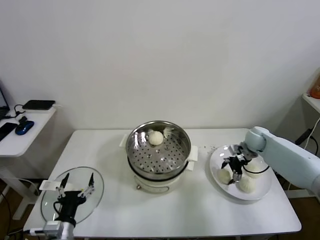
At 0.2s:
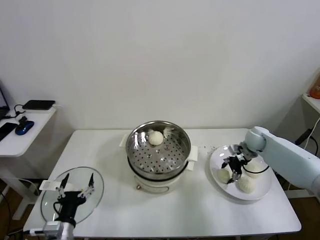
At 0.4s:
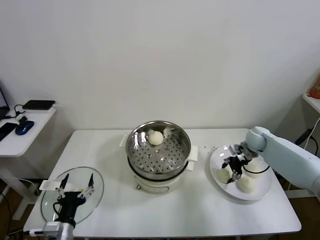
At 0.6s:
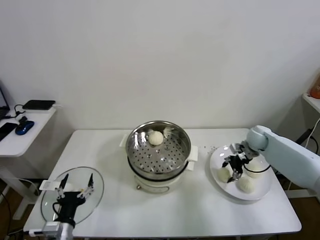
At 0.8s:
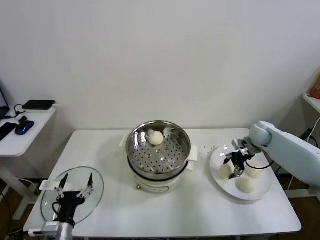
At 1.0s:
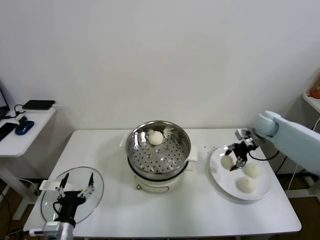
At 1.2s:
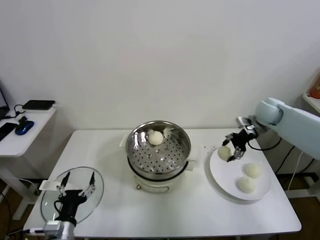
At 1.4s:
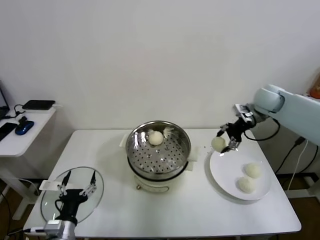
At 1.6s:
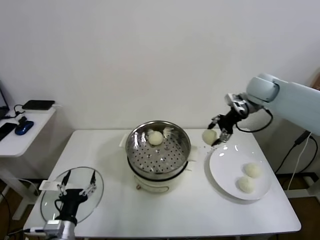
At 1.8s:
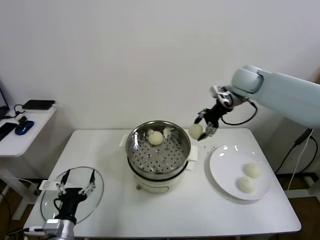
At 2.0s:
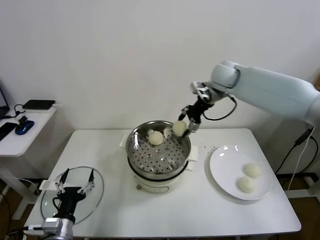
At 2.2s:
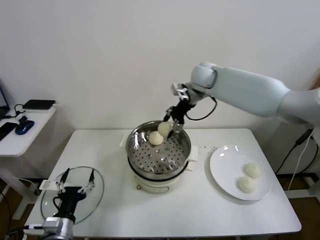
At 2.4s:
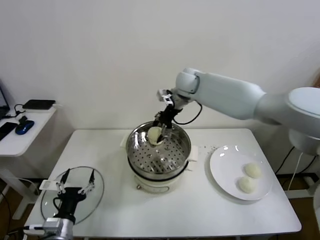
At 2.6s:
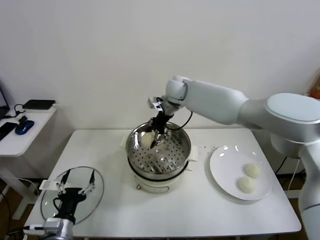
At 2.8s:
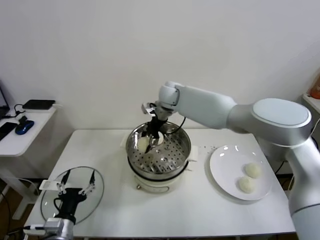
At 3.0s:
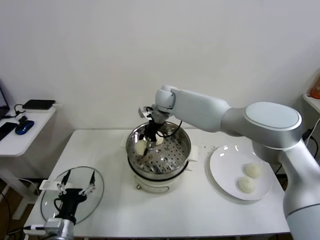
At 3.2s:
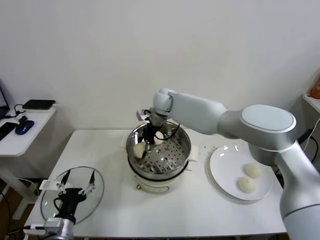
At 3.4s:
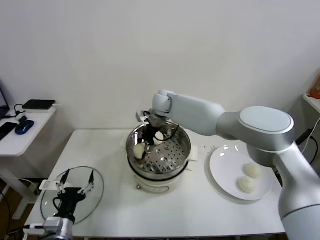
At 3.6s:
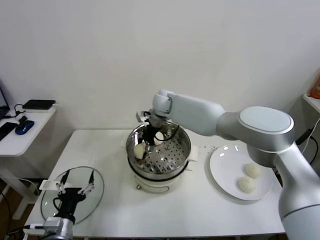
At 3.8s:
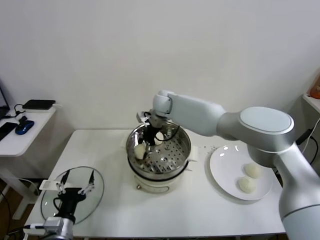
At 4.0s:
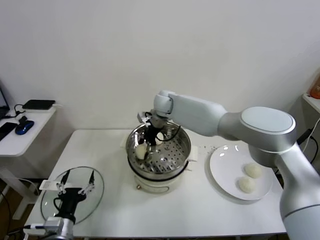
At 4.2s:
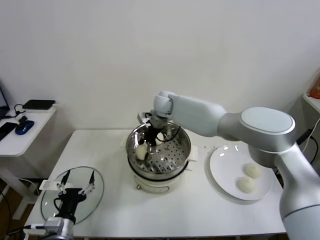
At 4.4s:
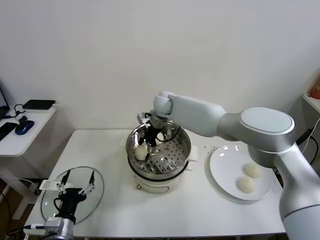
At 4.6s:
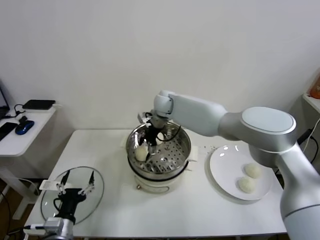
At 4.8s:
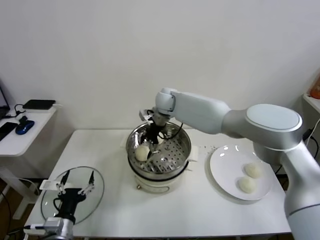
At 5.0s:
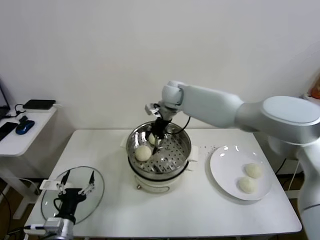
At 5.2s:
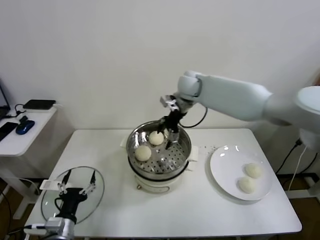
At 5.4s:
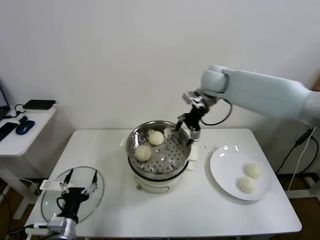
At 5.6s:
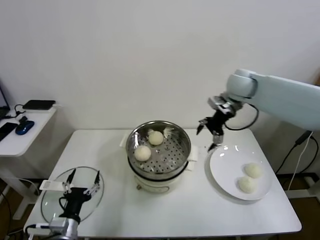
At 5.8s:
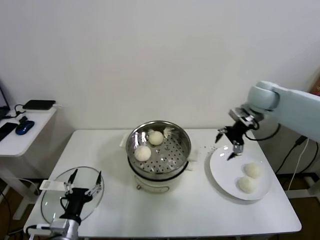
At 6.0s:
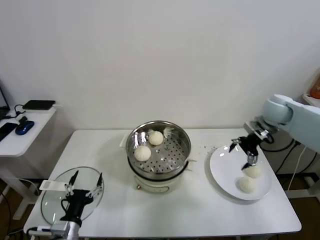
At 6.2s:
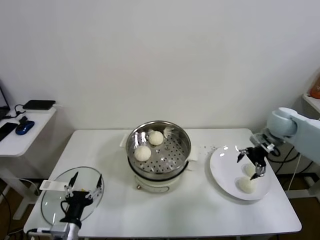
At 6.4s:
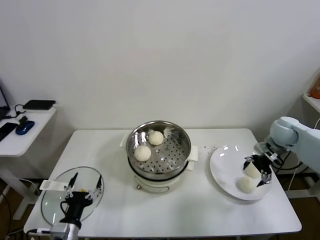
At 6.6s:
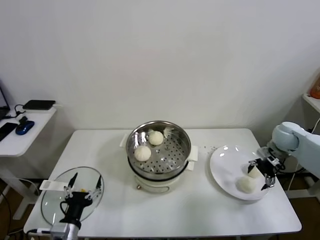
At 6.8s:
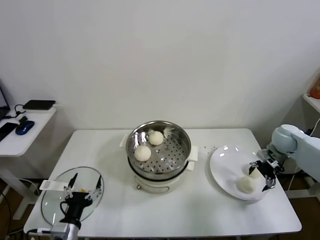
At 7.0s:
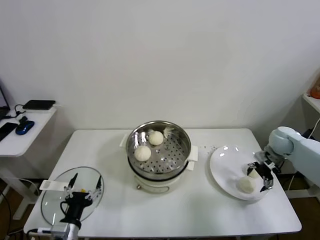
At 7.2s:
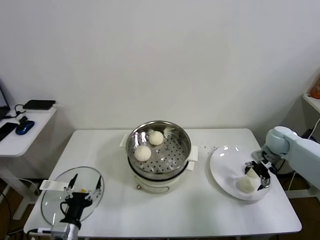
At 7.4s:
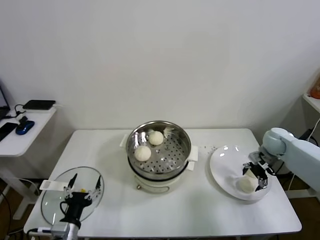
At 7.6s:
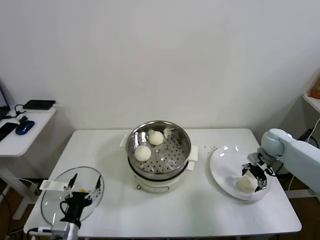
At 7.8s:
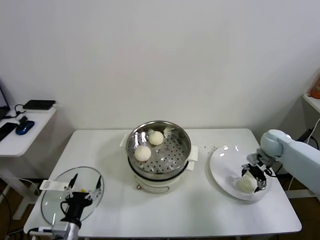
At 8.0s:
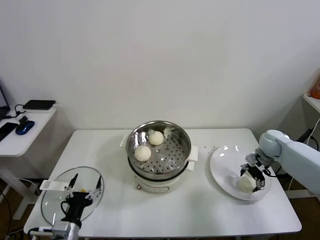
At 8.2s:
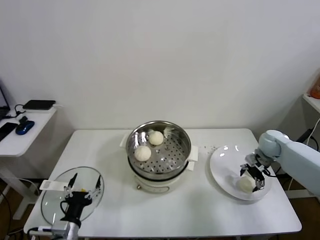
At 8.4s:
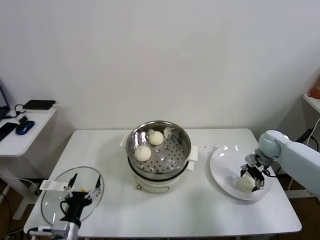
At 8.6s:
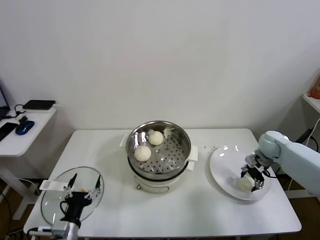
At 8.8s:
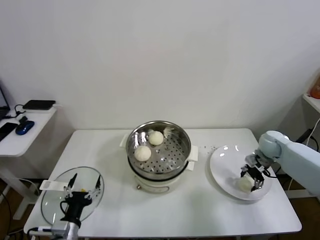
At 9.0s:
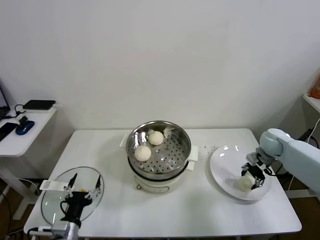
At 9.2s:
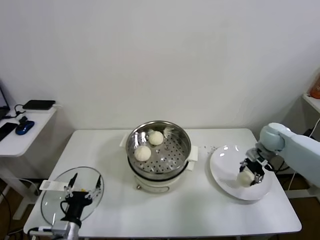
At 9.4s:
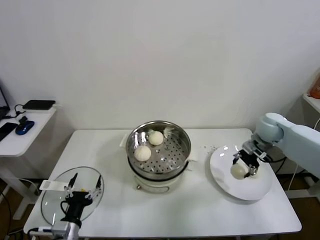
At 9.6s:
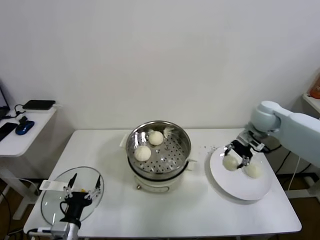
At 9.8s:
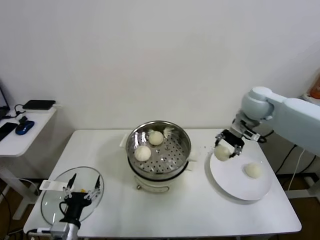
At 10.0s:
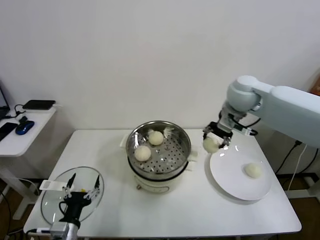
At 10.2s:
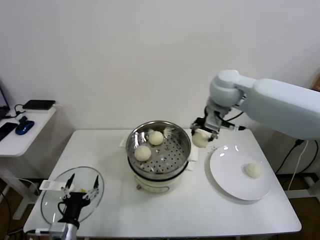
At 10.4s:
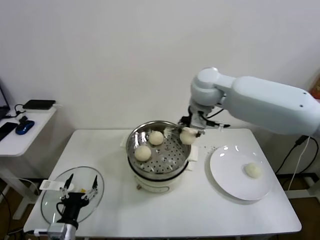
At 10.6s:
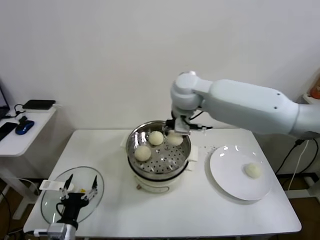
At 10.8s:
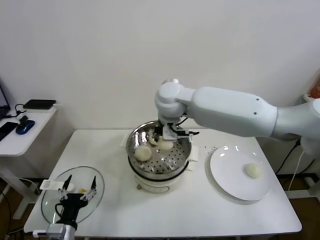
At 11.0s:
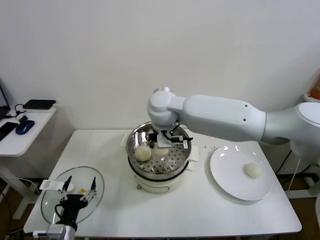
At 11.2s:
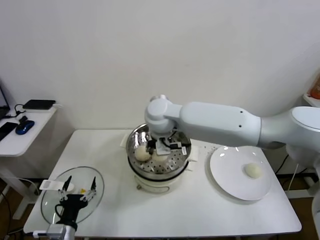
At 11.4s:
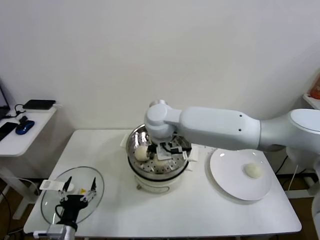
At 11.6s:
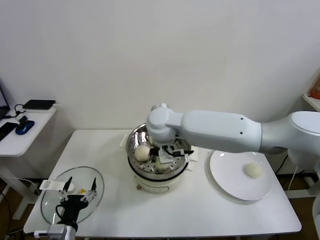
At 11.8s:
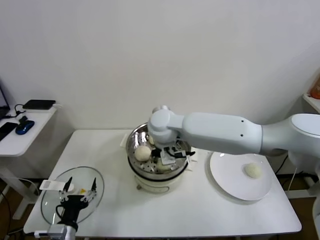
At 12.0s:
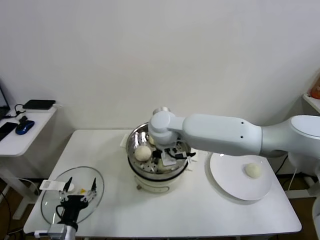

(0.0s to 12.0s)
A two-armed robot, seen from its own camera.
Task of the whole recording: take steamed baozi put them in steamer.
Step, 0.8s - 4.8s: Place the baozi on the steamer with right gripper.
Step, 5.0s - 8.6s: Grasp the baozi in the plate with right gripper.
0.0s - 1.6s: The right gripper goes roughly 25 cm upward, and closes its fingers.
1.6s - 3.0s: The right gripper shifts about 30 cm to the left.
3.0s - 4.4s: The right gripper opens.
4.4s - 6.0s: The right gripper moves to the right, roughly 40 cm.
6.0s - 7.6s: The right gripper heads downward, covering roughly 15 cm.
7.6s - 9.0s: The right gripper closes.
9.0s - 10.4s: The right gripper moves to the left and upward, about 40 cm.
10.4s - 12.0s: The right gripper goes about 15 cm to the left and downward.

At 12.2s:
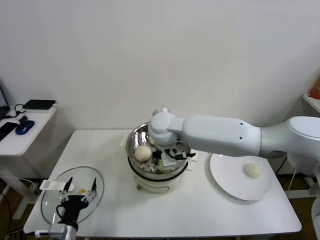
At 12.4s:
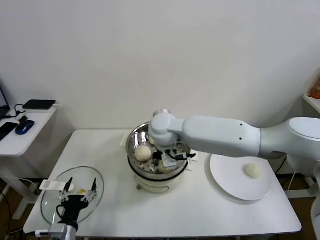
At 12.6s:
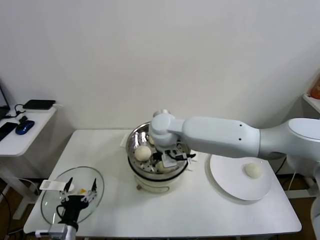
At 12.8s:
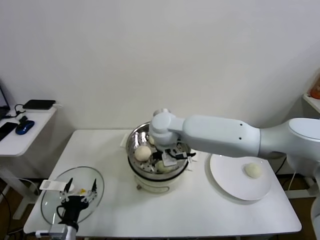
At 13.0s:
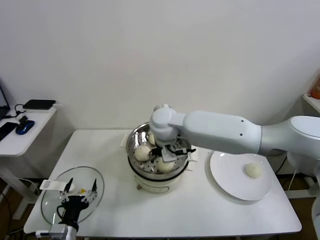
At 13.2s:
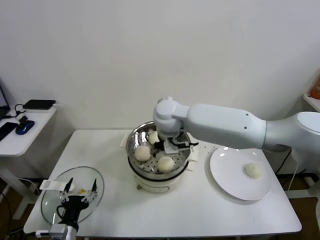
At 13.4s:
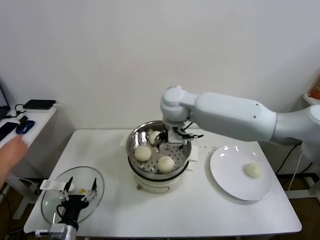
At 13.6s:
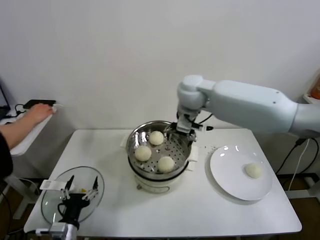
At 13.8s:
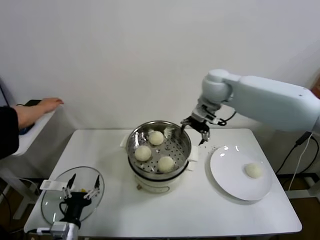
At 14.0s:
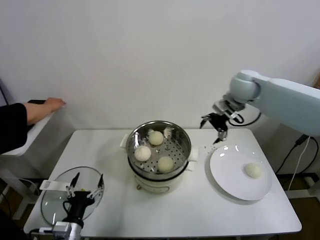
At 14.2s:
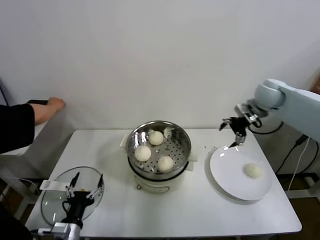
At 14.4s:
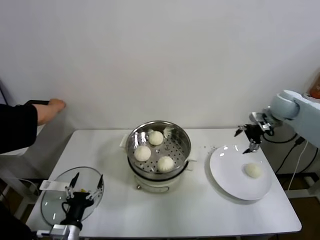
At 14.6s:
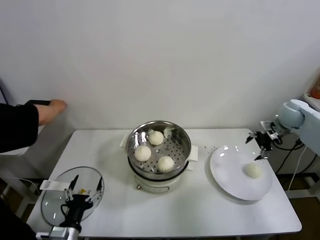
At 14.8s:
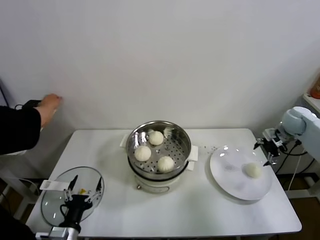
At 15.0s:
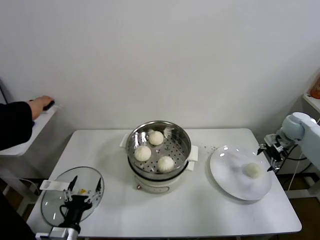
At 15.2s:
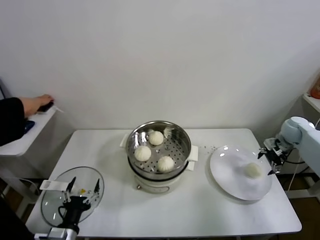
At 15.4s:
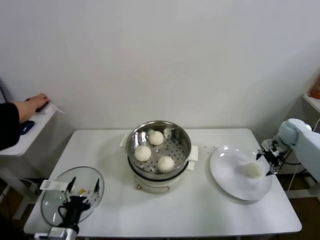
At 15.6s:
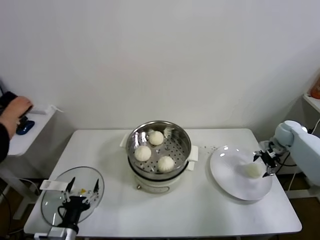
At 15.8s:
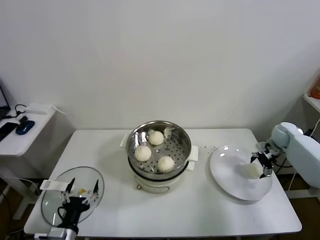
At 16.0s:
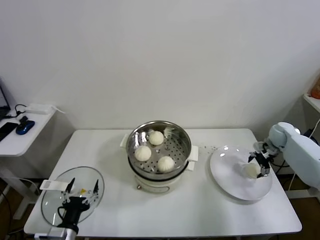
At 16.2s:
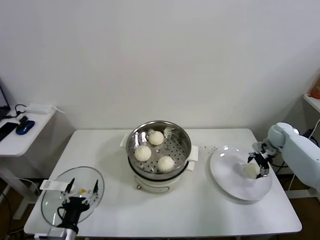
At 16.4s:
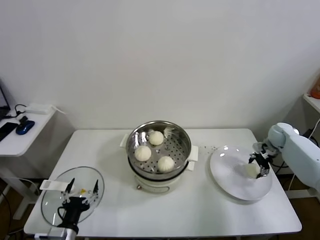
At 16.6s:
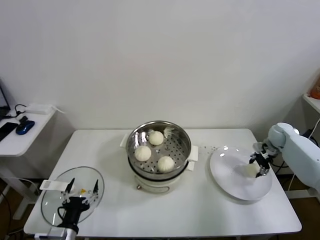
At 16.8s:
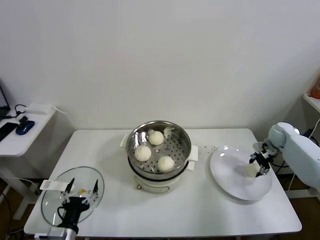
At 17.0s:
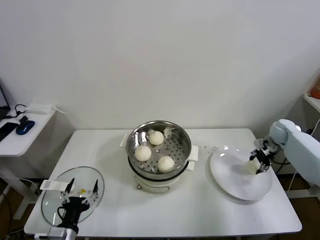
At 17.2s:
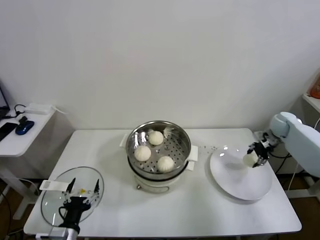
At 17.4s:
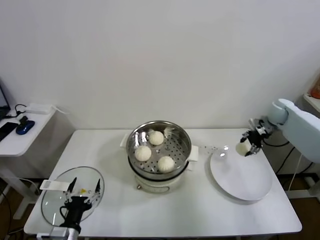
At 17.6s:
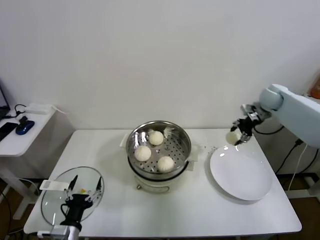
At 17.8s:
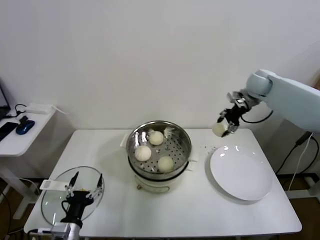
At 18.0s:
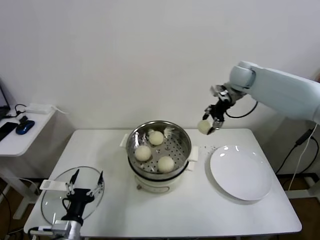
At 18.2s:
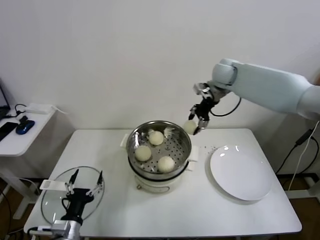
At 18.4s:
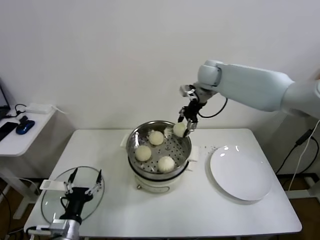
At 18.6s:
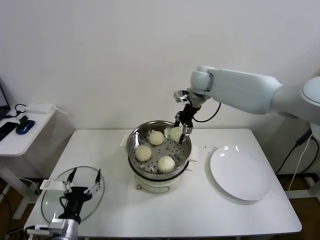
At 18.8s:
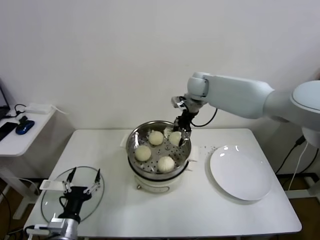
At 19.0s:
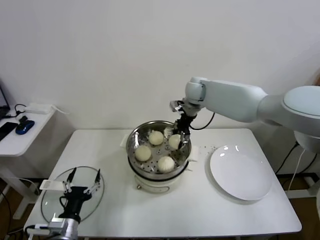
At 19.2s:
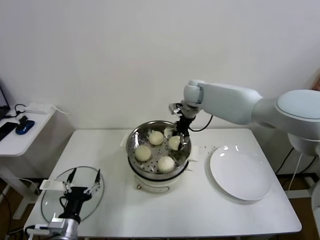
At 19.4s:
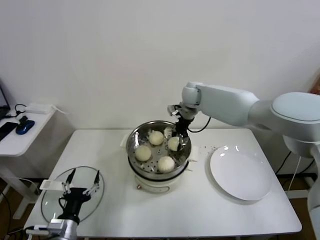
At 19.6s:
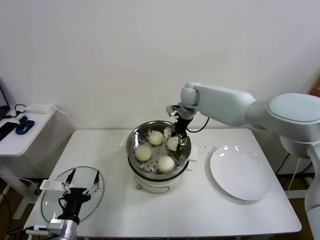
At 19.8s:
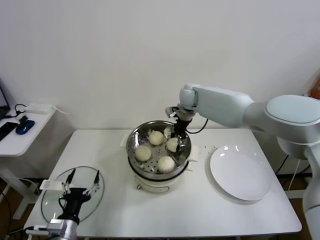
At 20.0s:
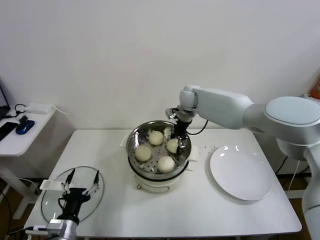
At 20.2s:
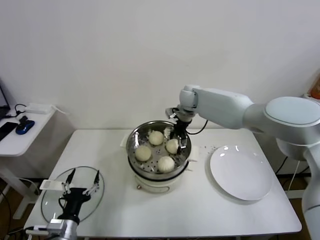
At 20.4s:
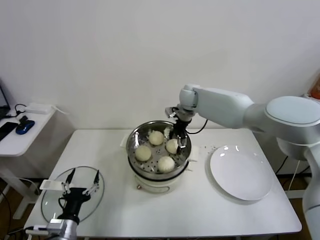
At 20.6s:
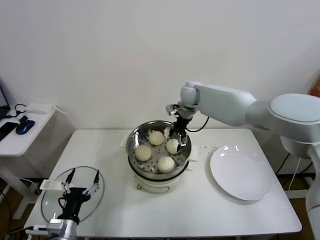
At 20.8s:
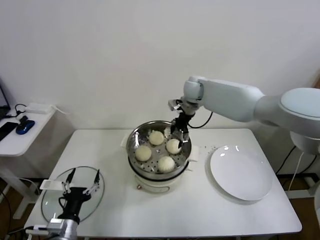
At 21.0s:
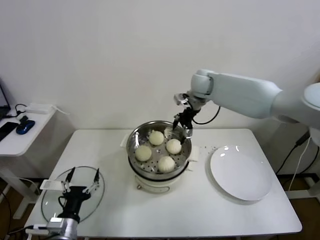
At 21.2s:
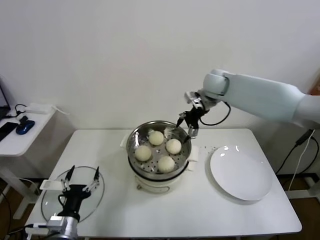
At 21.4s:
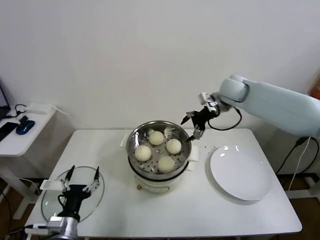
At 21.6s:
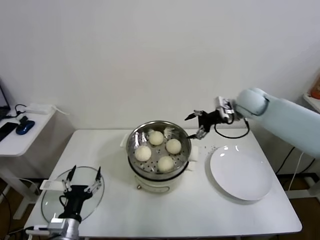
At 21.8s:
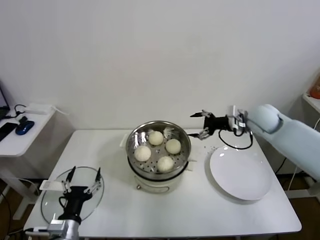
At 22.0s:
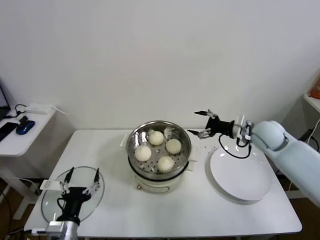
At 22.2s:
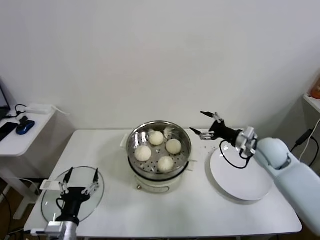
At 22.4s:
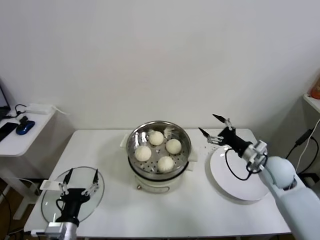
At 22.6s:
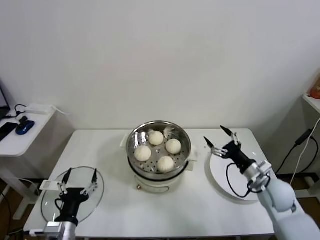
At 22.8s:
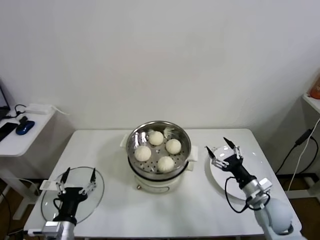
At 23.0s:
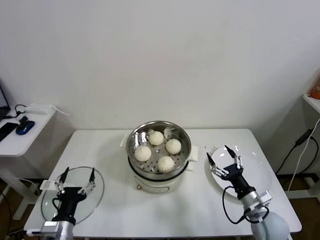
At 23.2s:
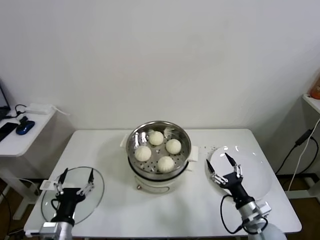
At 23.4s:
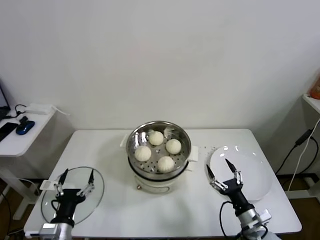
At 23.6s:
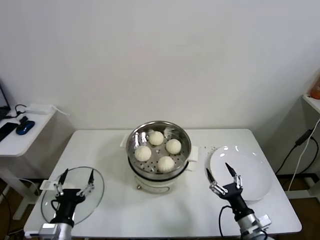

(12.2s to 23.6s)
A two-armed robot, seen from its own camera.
Task of the whole recording: take steamed baozi put them in steamer.
Step, 13.2s - 16.4s: Grasp the baozi in the plate with right gripper.
Step, 16.6s - 20.6s: Place the baozi on the steamer with right gripper.
12.2s - 13.6s: The right gripper goes approximately 15 cm to the right, upward and forward, and opens up.
13.6s - 15.0s: The right gripper travels to the right by approximately 40 cm.
15.0s - 16.4s: The right gripper goes roughly 5 cm downward.
16.4s - 17.8s: The right gripper moves upward and to the left, approximately 25 cm, and closes its fingers.
17.8s - 19.4s: The right gripper travels to the left by approximately 25 cm.
19.4s - 20.8s: The right gripper opens up.
20.8s - 22.2s: The right gripper heads to the right, backward and downward, covering about 30 cm.
22.2s - 23.6s: The right gripper heads backward and downward, covering approximately 30 cm.
